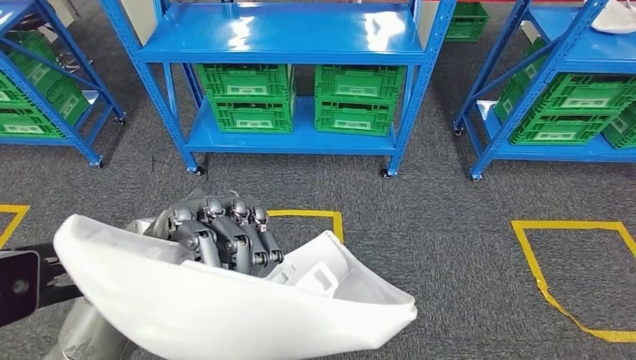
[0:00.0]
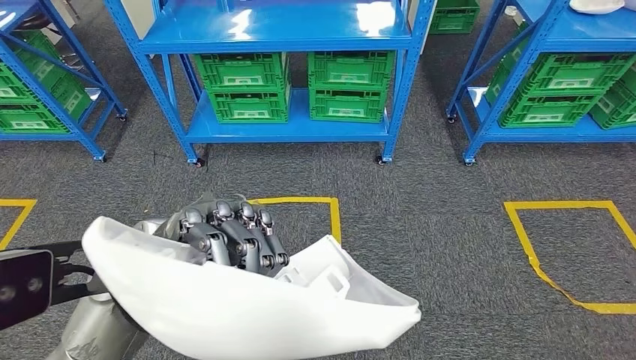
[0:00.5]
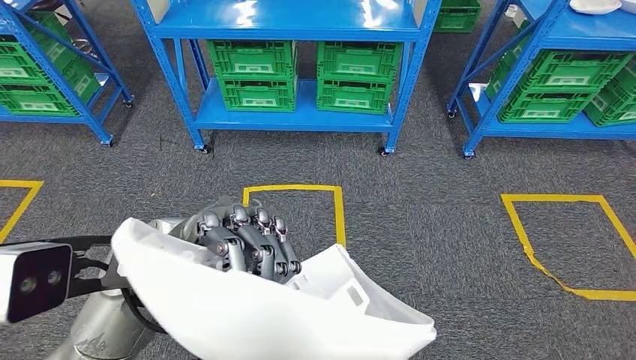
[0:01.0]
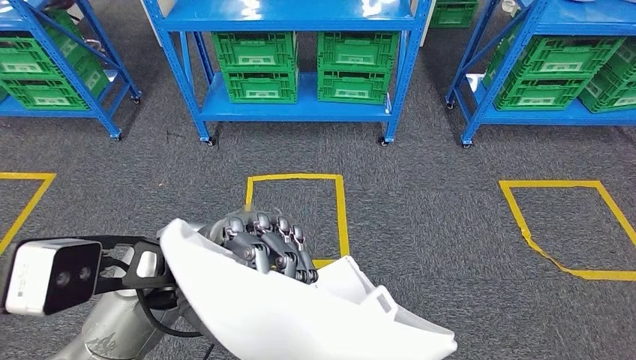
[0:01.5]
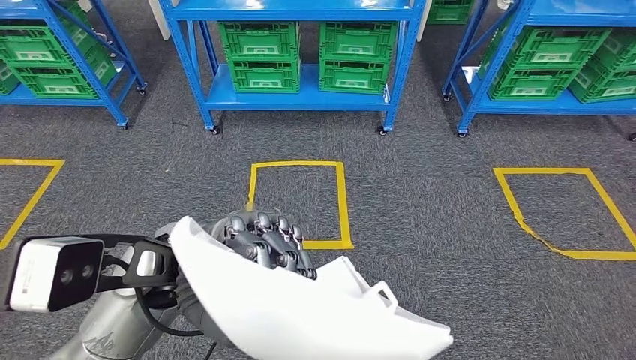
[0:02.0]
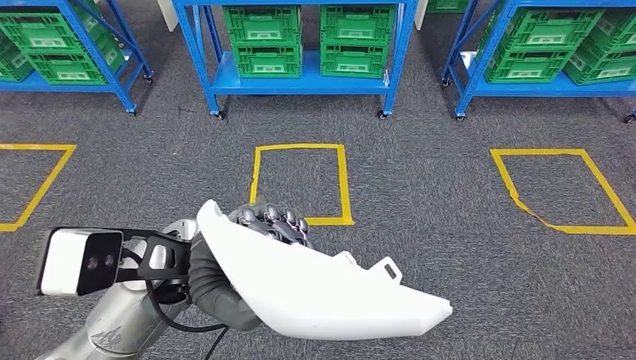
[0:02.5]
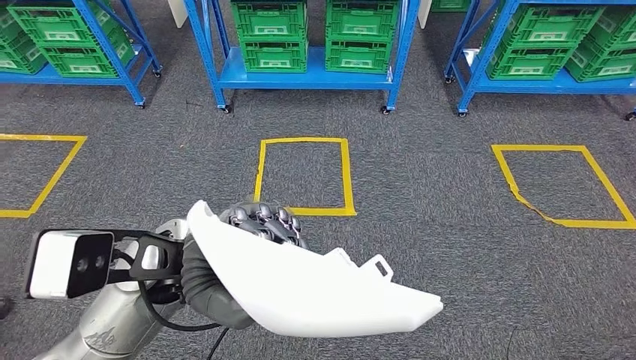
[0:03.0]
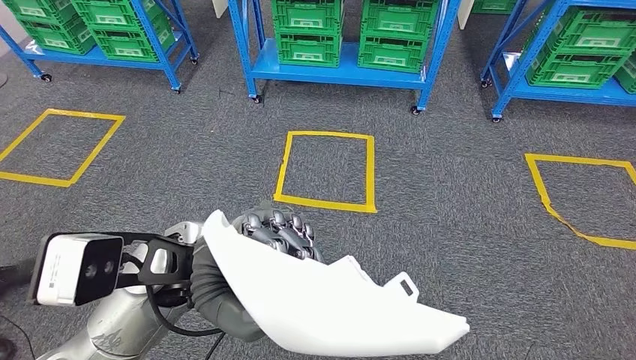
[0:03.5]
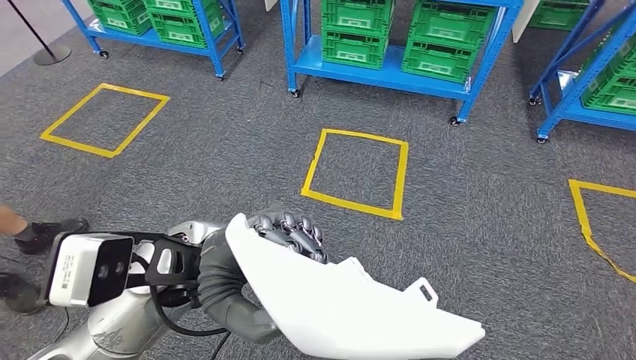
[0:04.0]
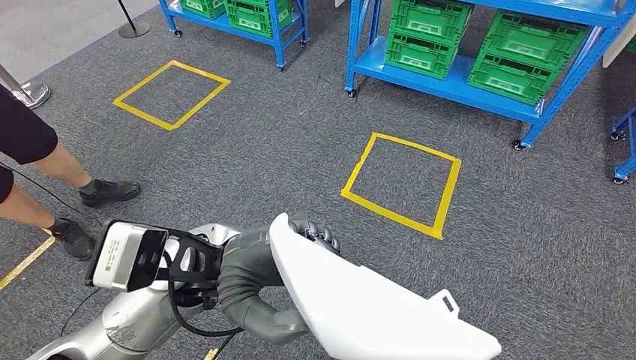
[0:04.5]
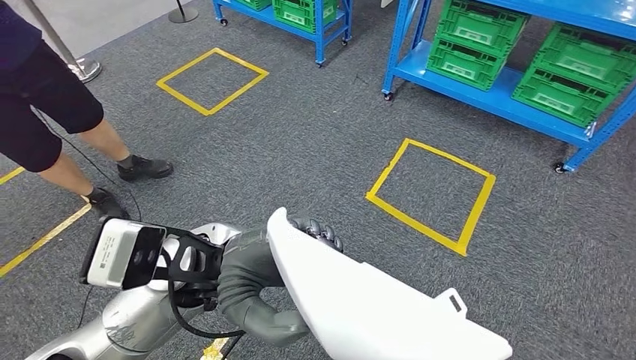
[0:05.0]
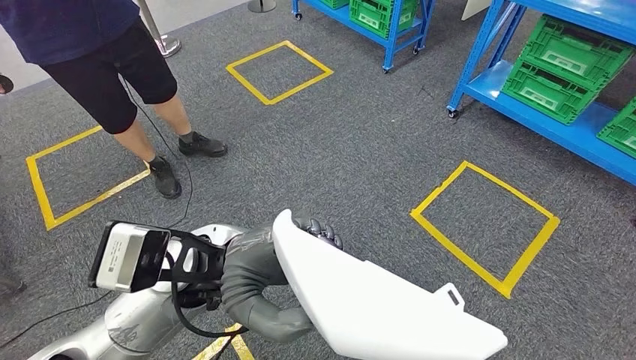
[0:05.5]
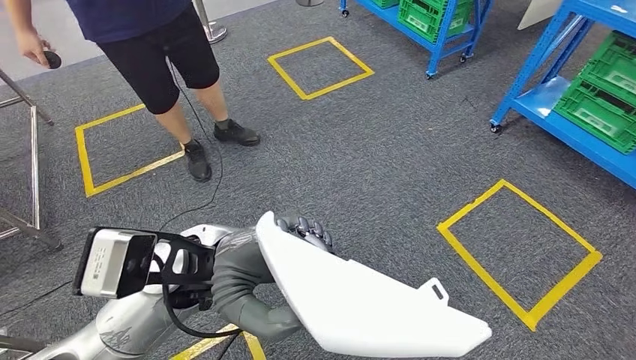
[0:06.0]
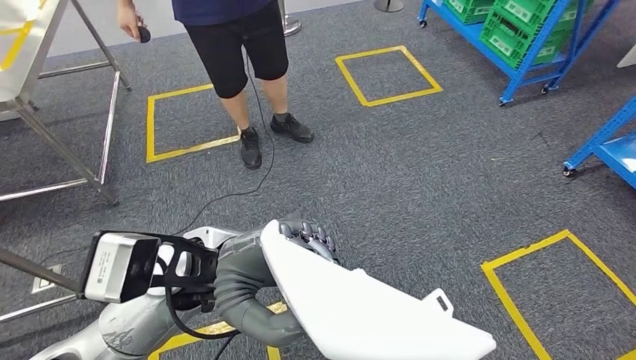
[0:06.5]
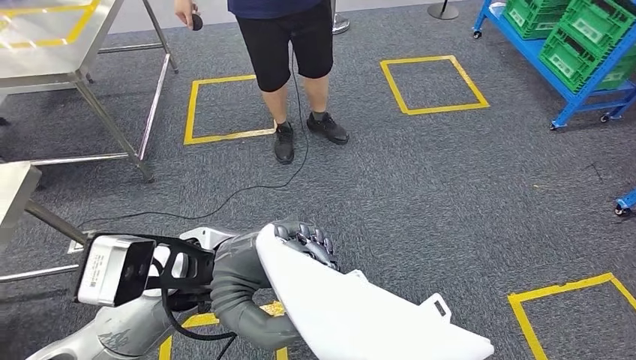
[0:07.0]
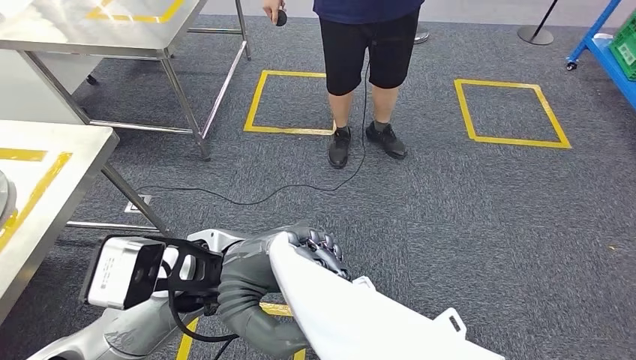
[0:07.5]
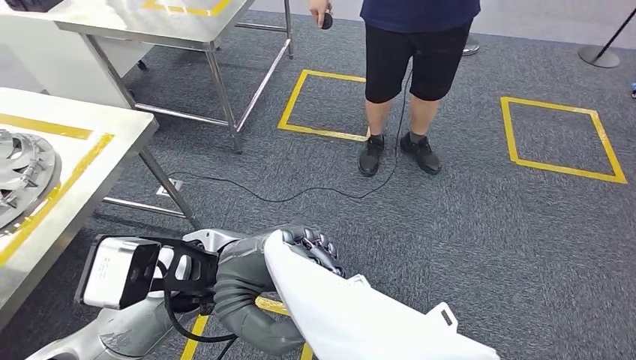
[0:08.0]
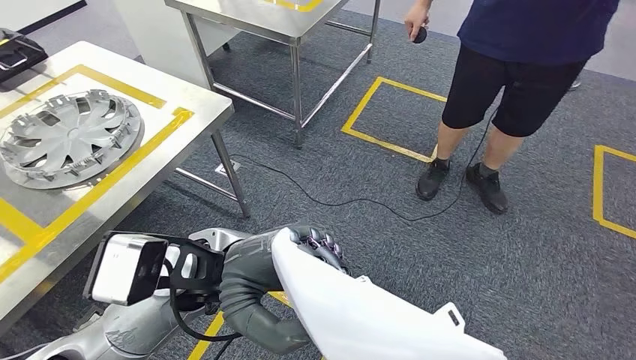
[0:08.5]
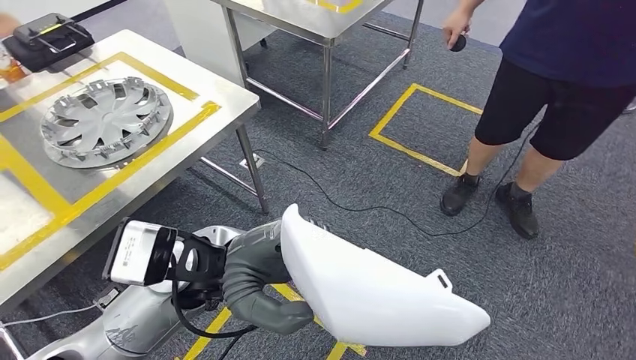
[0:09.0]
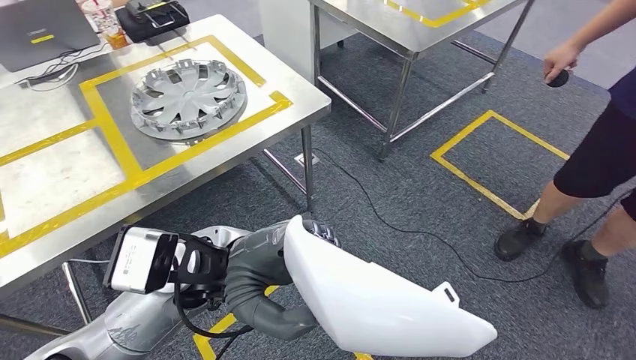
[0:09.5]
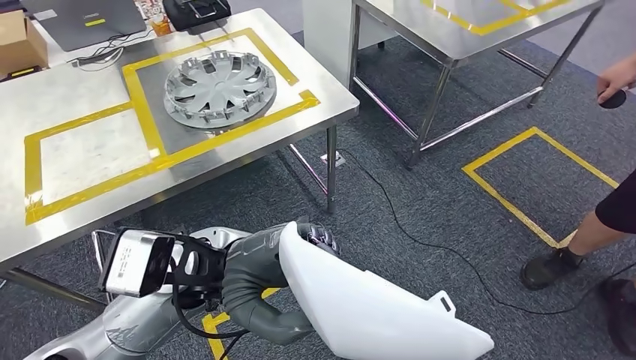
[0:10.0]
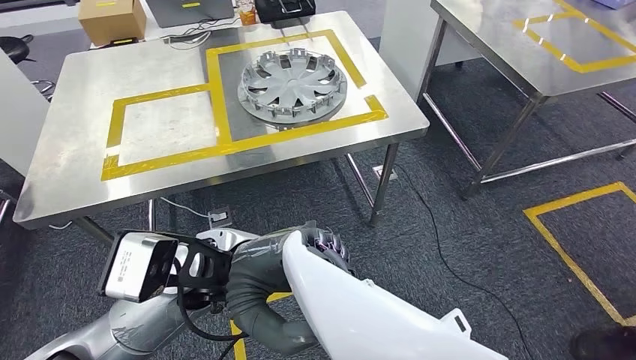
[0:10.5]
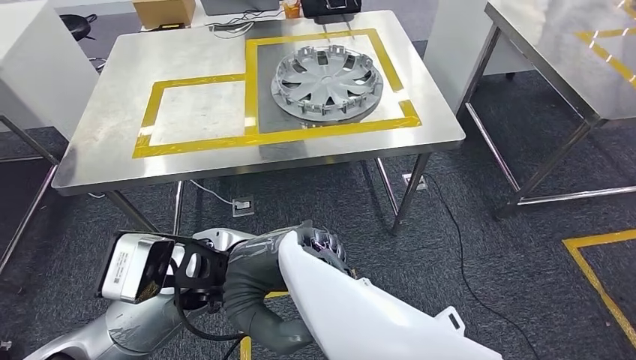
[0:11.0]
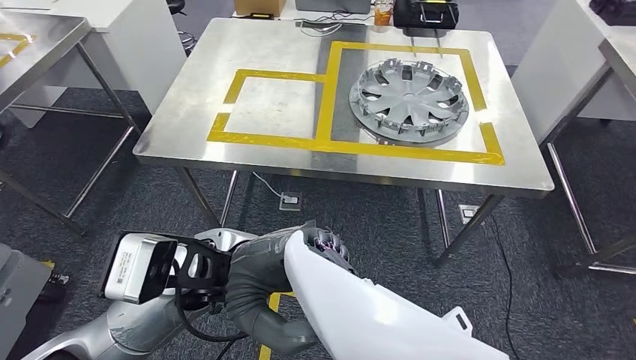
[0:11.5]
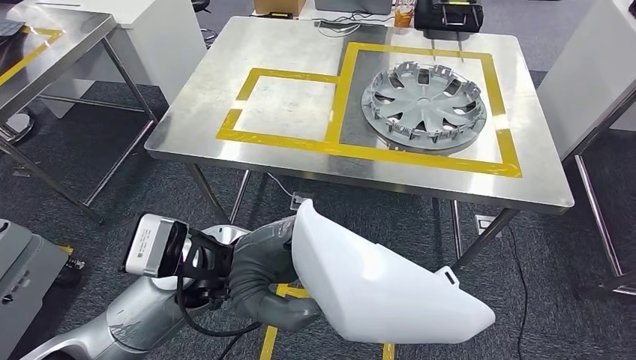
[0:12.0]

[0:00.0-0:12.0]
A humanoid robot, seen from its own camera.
Step, 0:00.0 to 0:10.0: Move the small component to the workbench.

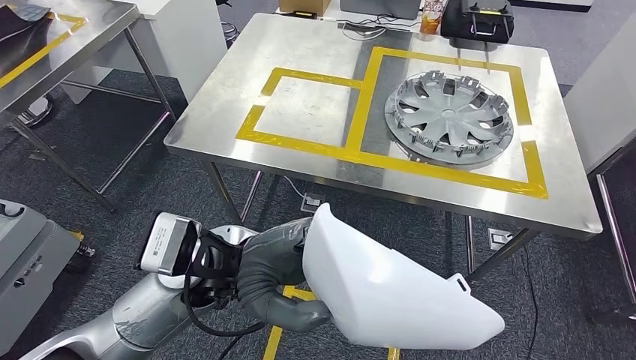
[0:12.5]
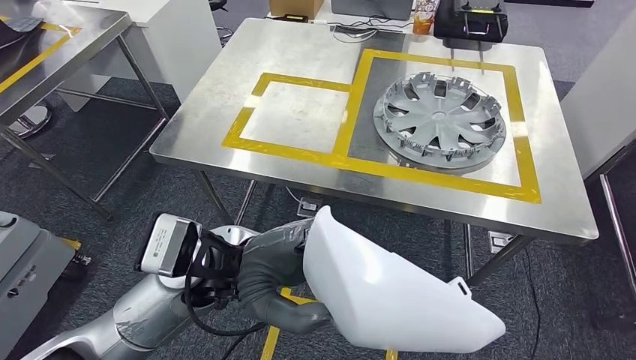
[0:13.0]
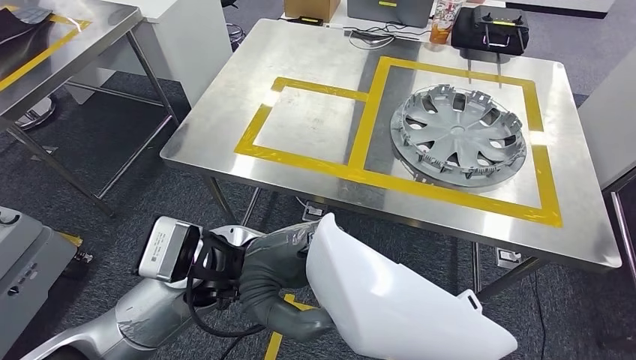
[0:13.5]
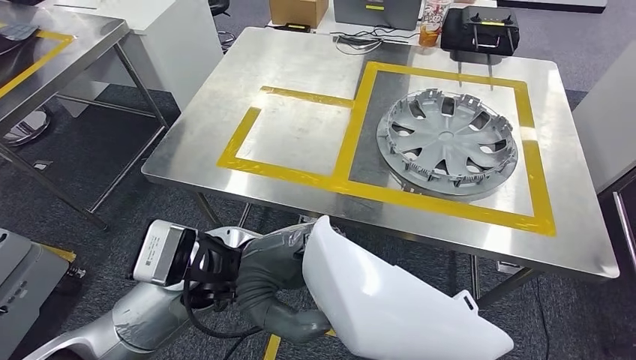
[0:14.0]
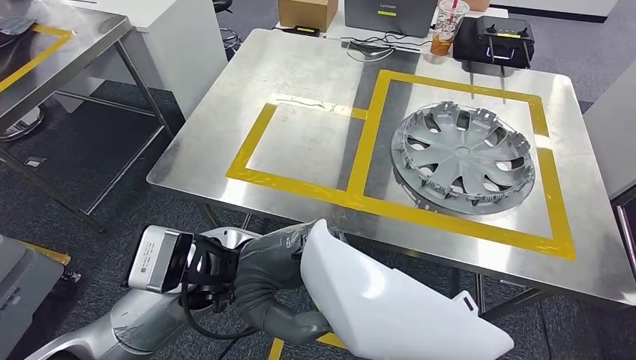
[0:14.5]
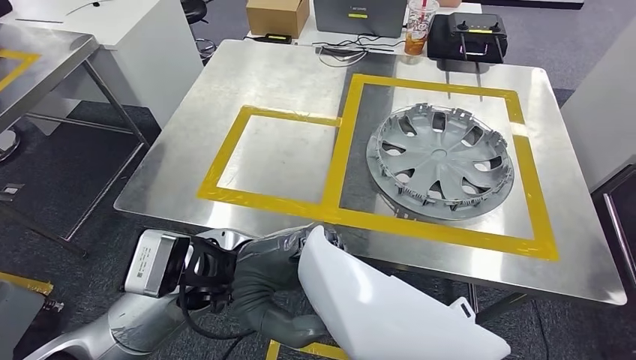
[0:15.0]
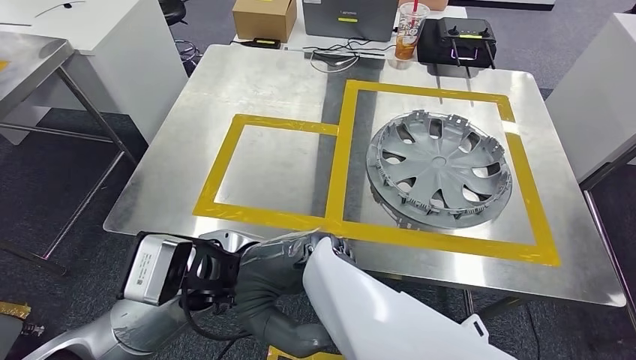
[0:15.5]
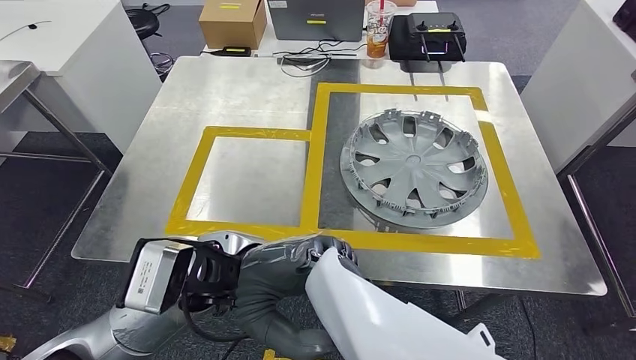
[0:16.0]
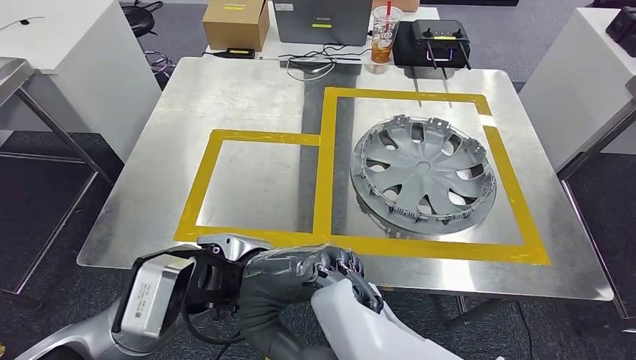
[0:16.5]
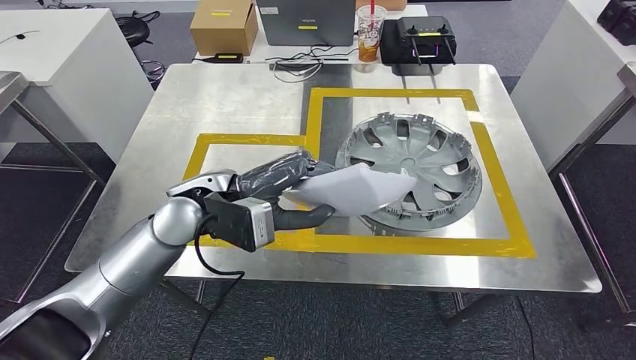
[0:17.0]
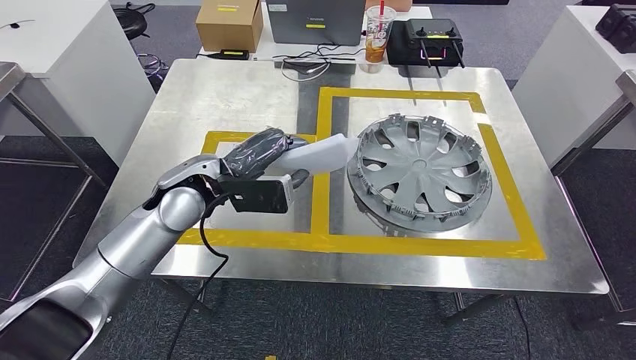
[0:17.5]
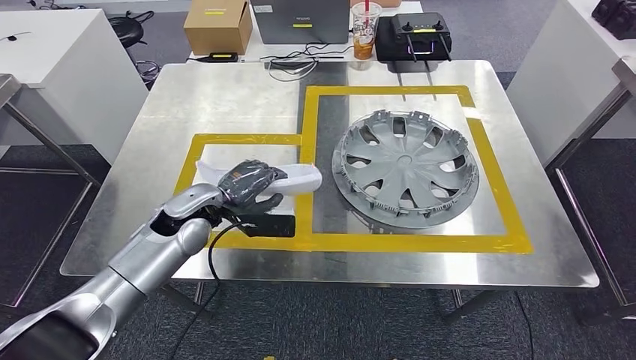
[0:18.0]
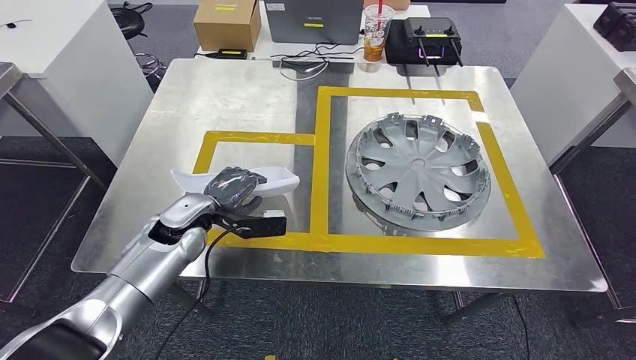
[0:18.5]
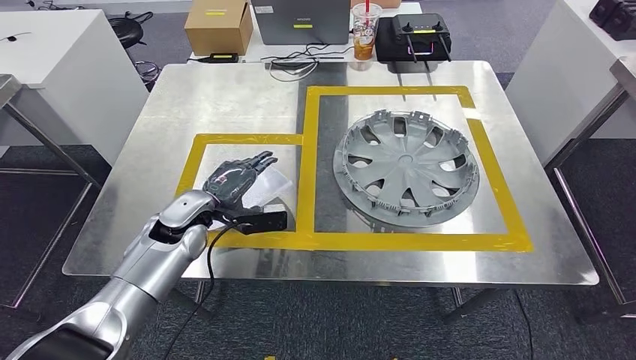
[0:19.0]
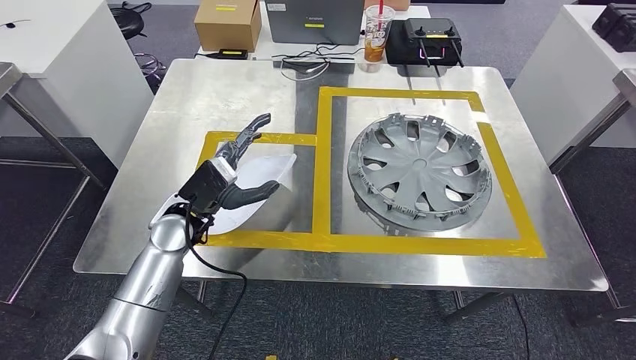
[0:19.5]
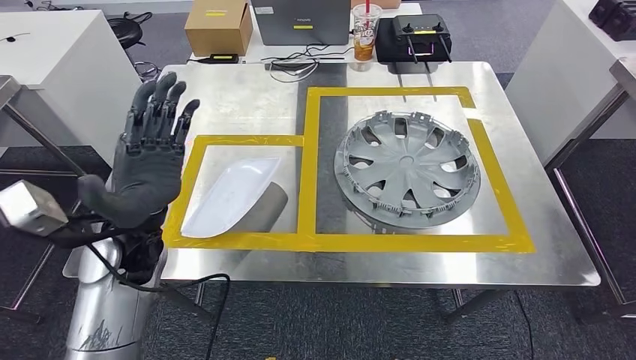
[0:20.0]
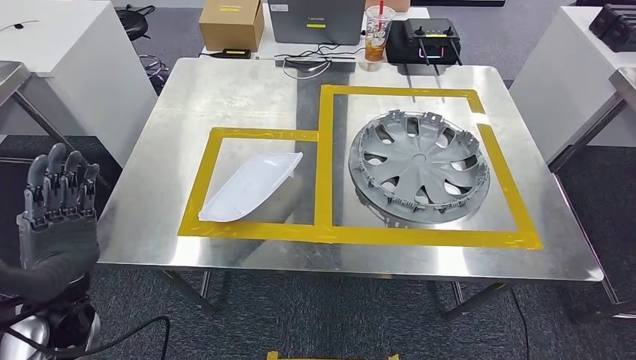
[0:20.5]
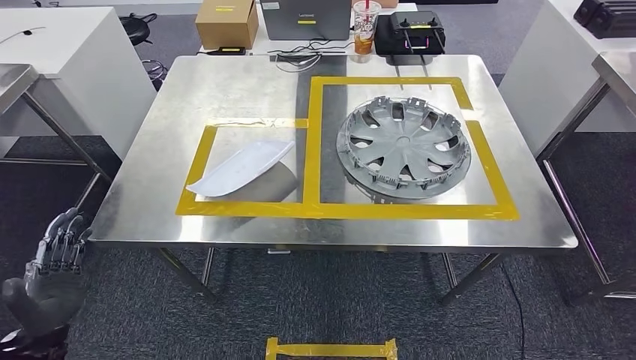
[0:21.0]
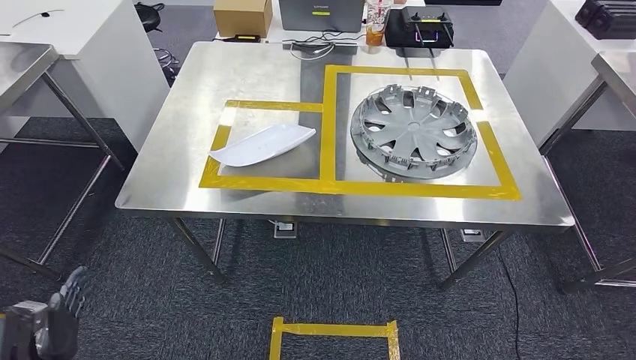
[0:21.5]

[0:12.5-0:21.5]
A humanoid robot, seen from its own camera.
Step, 0:12.5 to 0:20.0: Insert the small component into the corresponding slot on the workbench.
Step, 0:20.5 to 0:21.5: Return to the initial position at the workbench.
